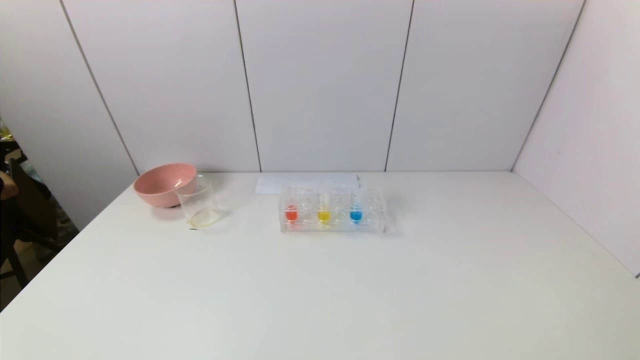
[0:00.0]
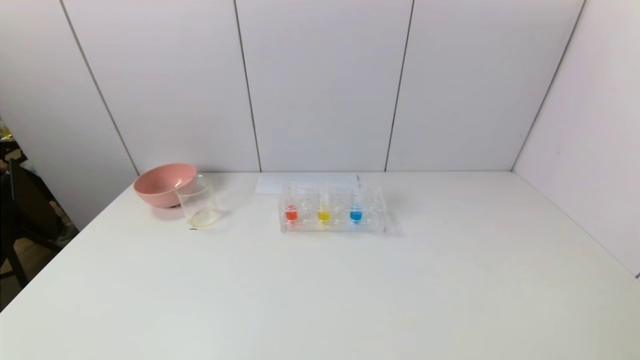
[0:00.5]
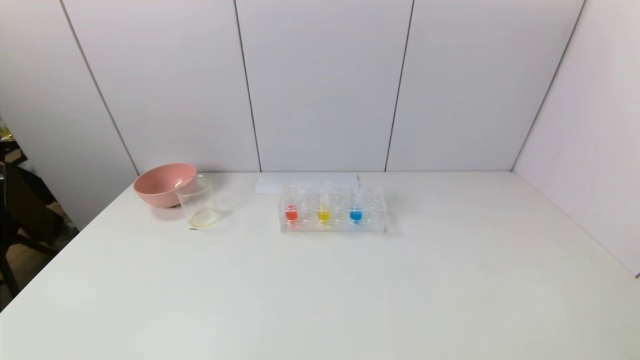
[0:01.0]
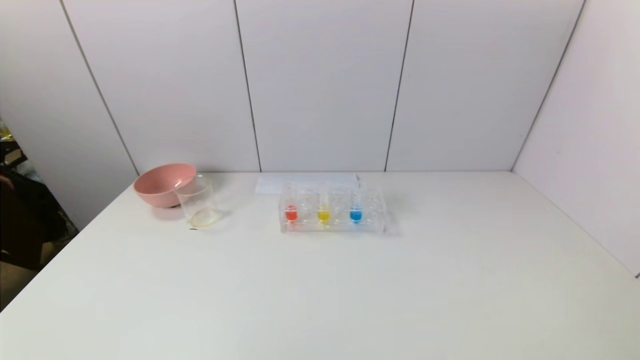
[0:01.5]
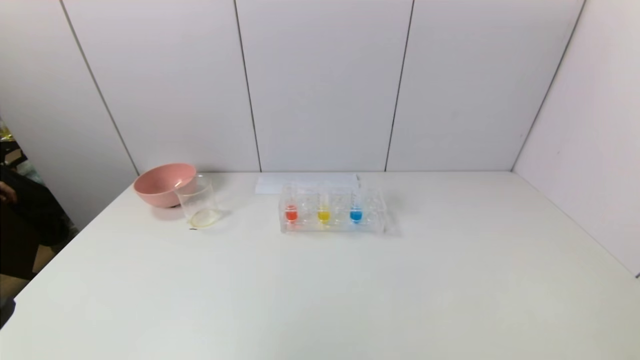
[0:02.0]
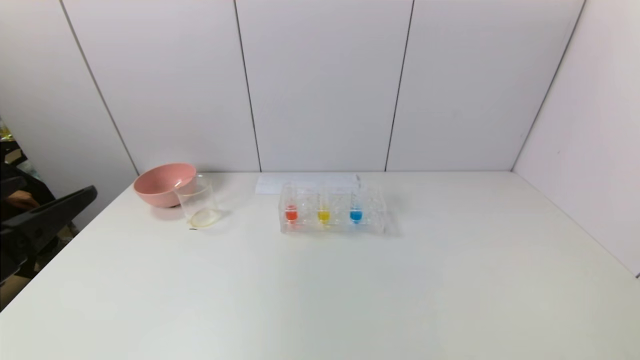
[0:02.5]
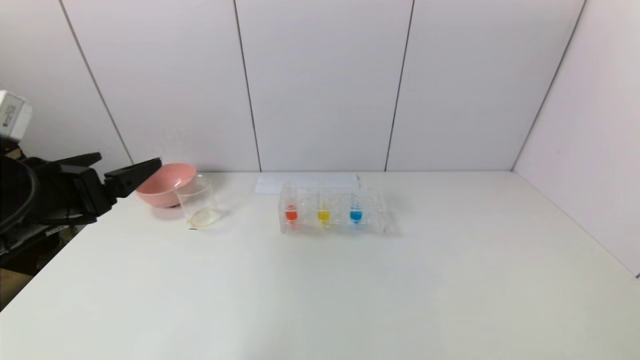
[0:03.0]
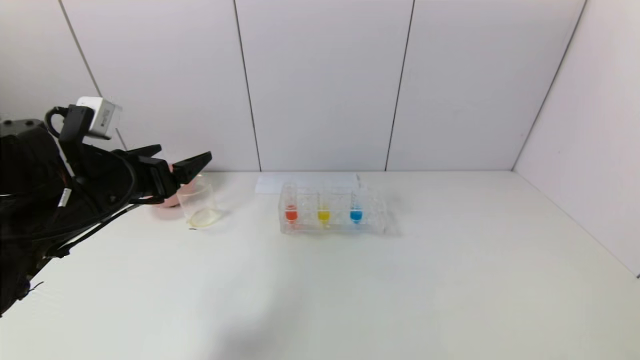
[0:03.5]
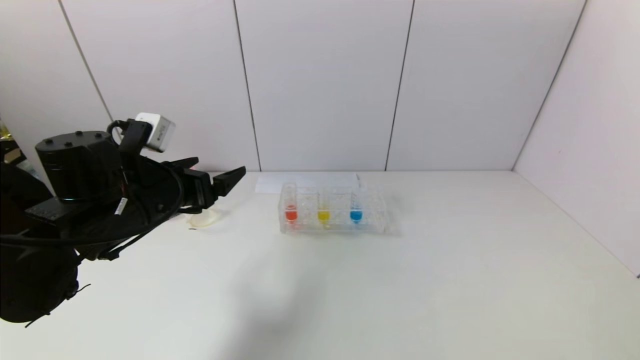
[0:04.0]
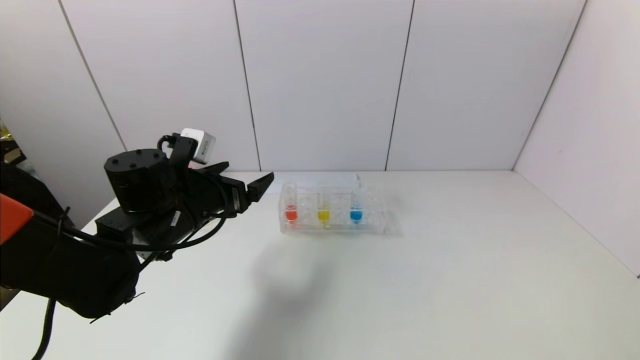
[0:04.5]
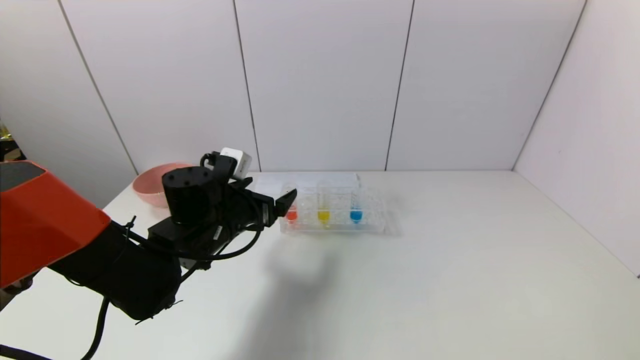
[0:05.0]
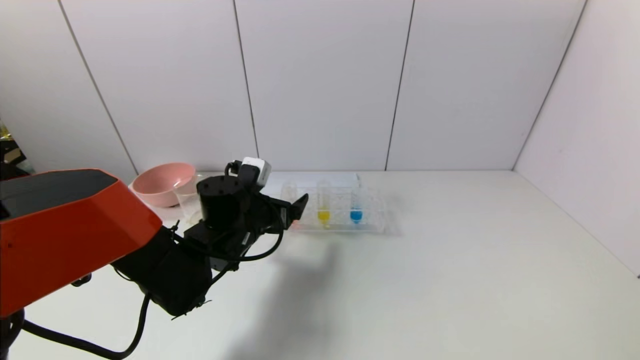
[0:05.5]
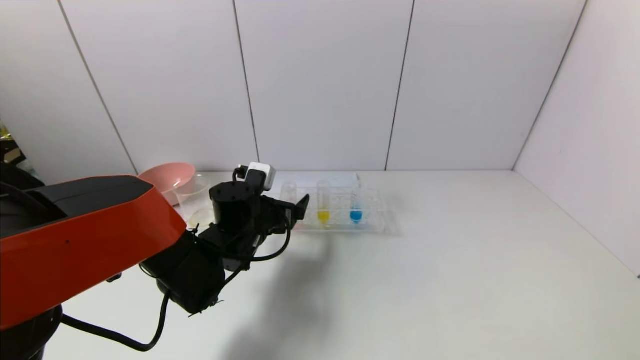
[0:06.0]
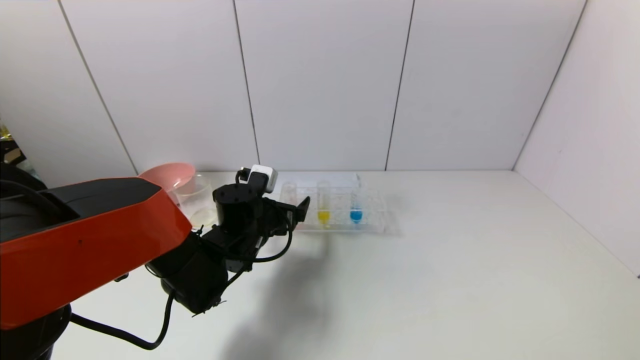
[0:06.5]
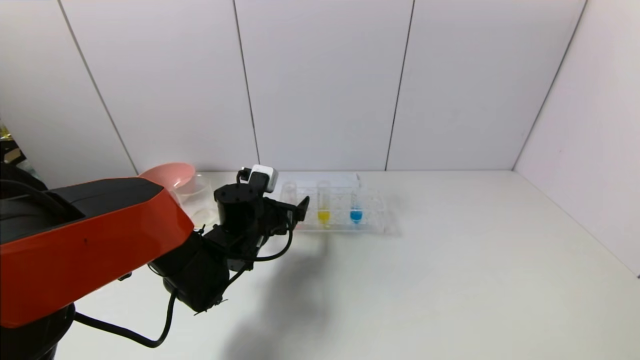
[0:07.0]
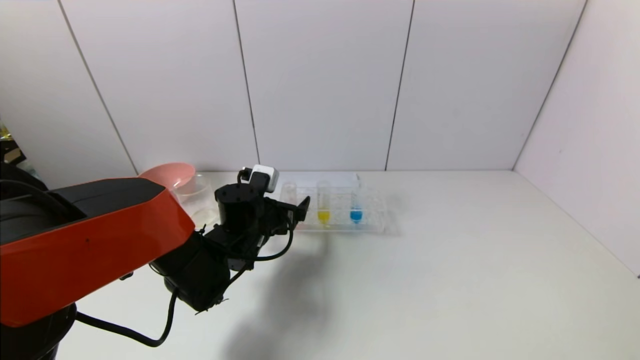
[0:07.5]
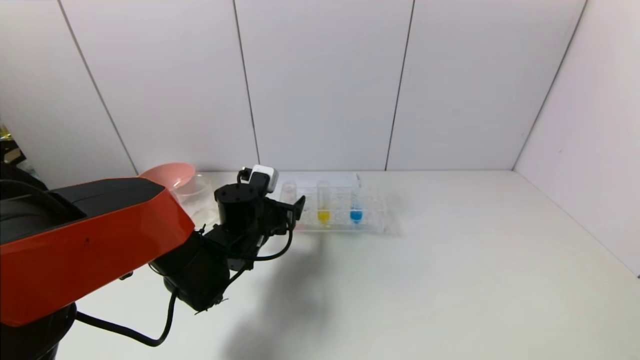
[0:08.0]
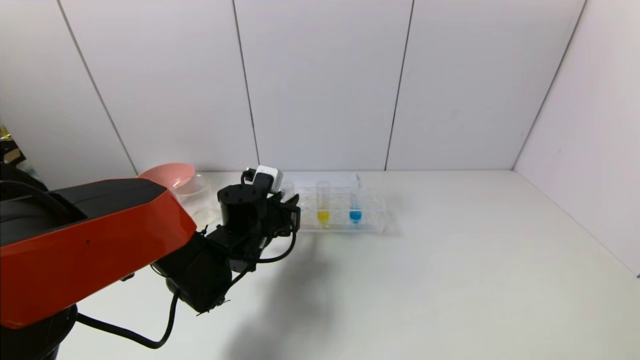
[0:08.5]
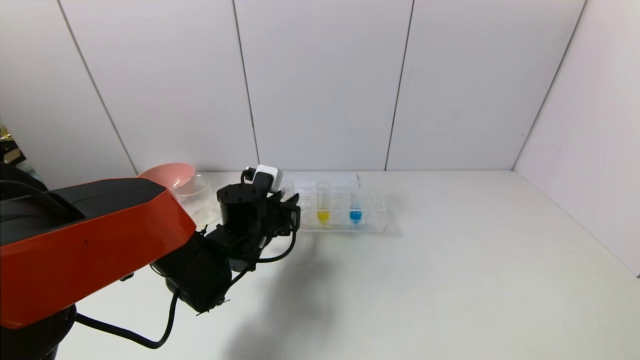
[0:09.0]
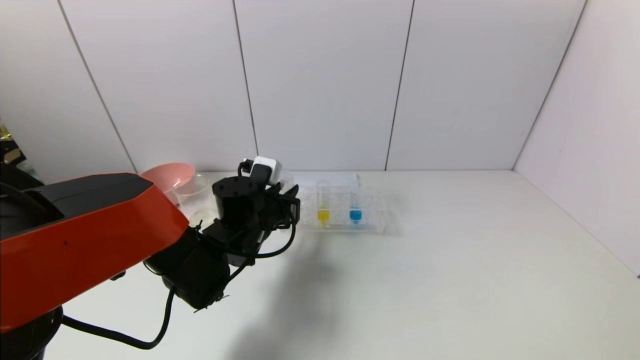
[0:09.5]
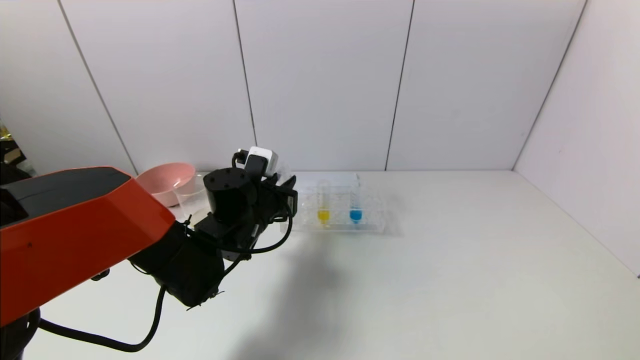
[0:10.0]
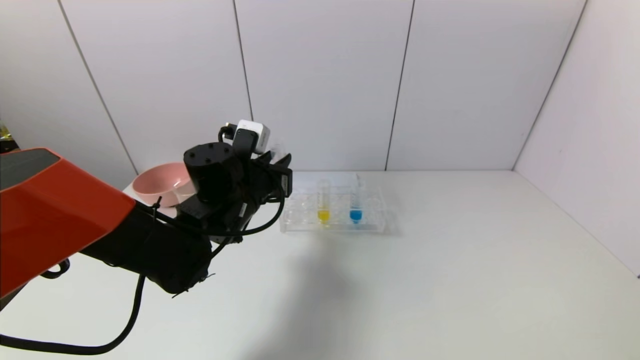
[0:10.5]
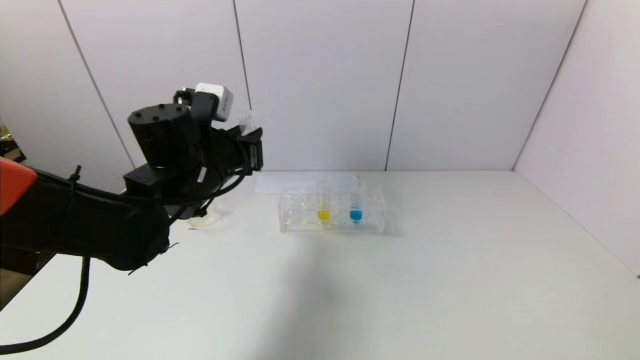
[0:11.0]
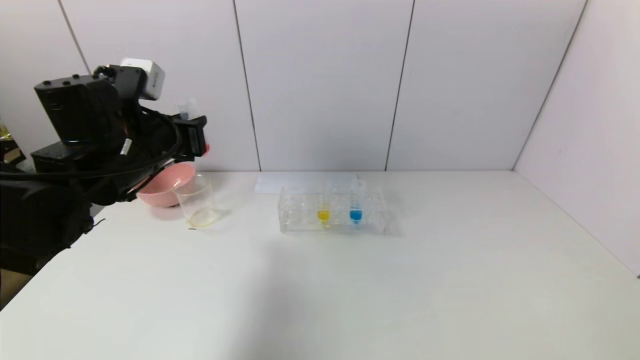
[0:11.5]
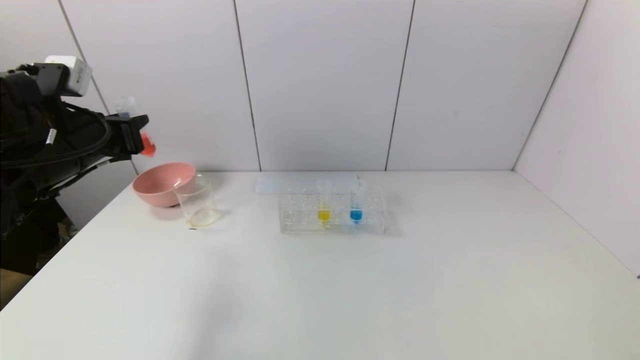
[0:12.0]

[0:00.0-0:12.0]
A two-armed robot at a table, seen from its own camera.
Task of the whole recording: pick up the test tube with yellow pigment and the test tube with red pigment by grippers and pour them into the beaker.
Step, 0:00.0 to 0:08.5: Grasp the red reagent with the left gripper.
0:00.0 to 0:02.0: The left gripper goes about 15 cm upward.
0:02.0 to 0:04.0: The left gripper heads forward, covering approximately 25 cm.
0:04.0 to 0:06.0: The left gripper moves to the right, downward and forward, approximately 15 cm.
0:06.0 to 0:08.0: Neither gripper changes place.
0:08.0 to 0:10.0: The left gripper closes its fingers.
0:10.0 to 0:12.0: The left gripper is displaced to the left and upward by about 25 cm.

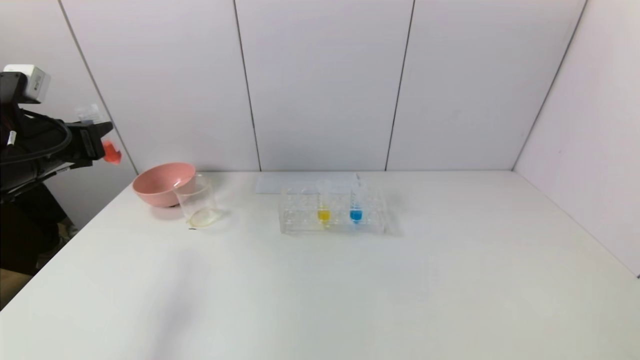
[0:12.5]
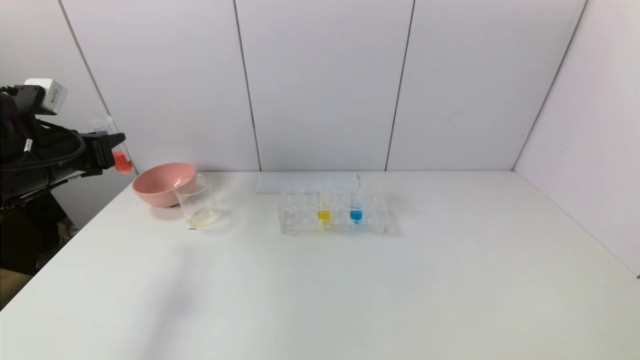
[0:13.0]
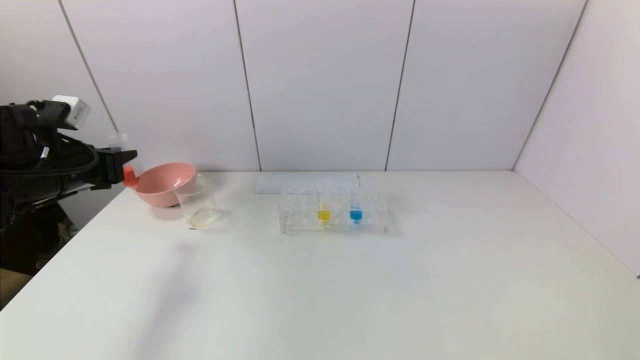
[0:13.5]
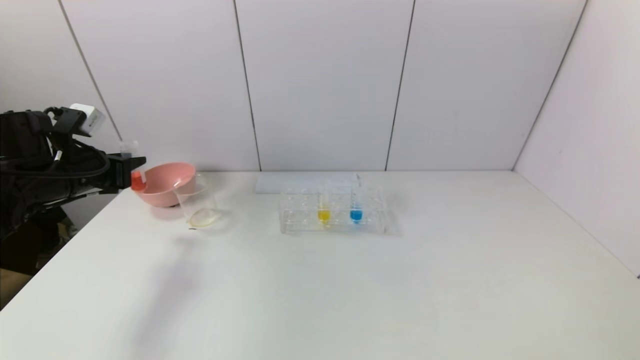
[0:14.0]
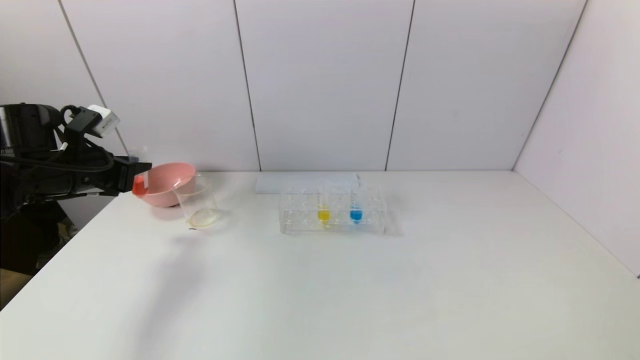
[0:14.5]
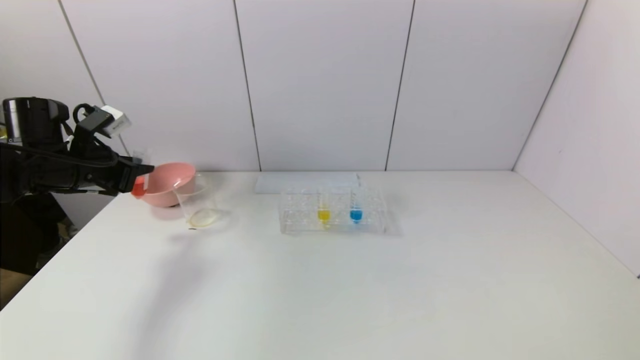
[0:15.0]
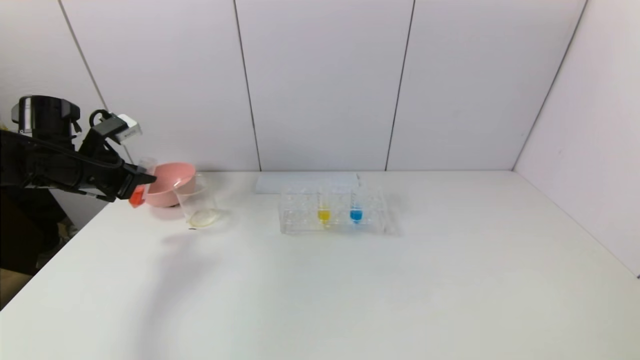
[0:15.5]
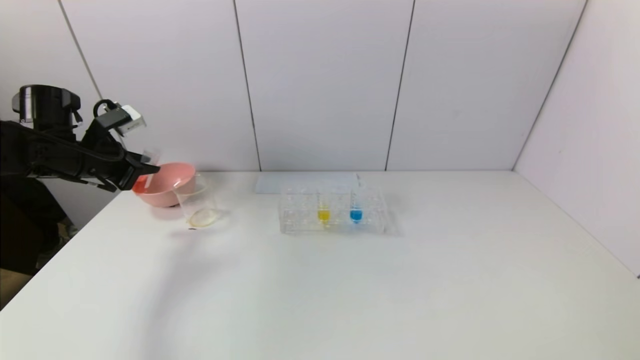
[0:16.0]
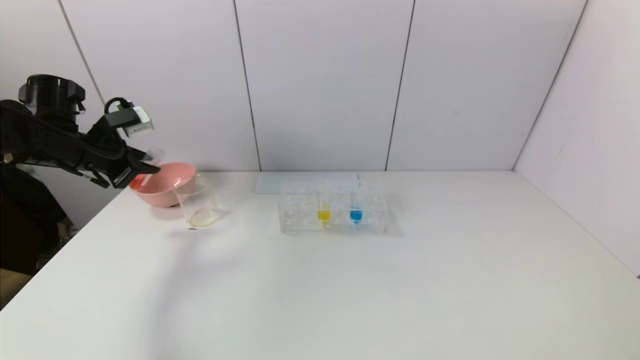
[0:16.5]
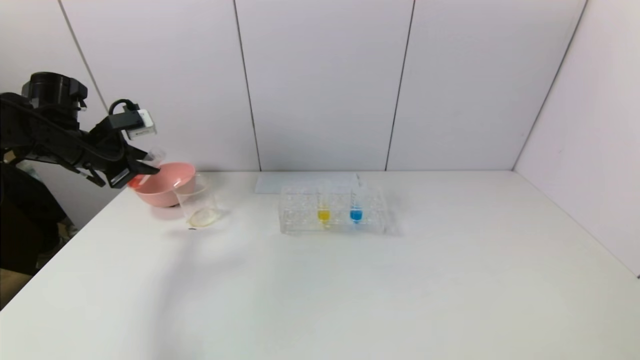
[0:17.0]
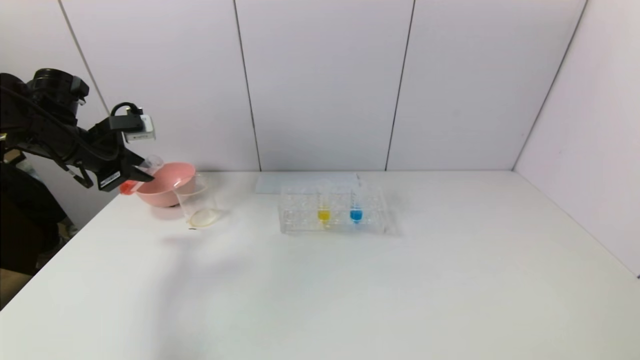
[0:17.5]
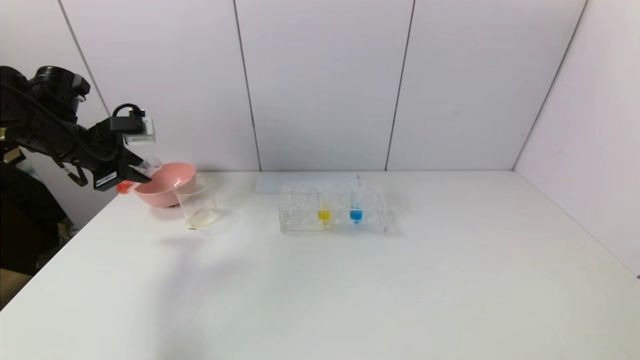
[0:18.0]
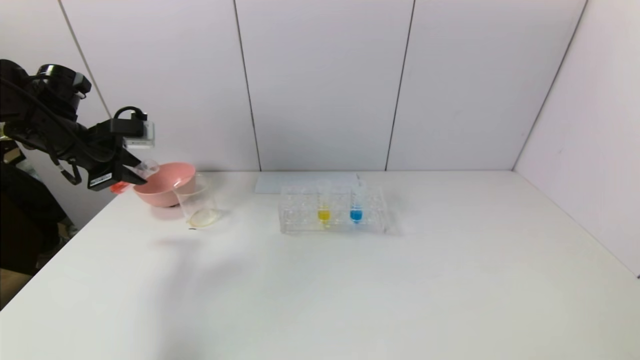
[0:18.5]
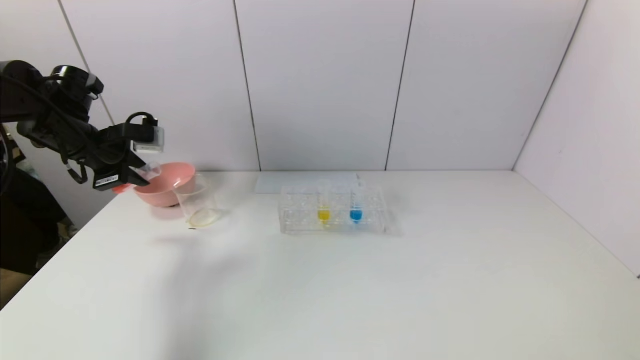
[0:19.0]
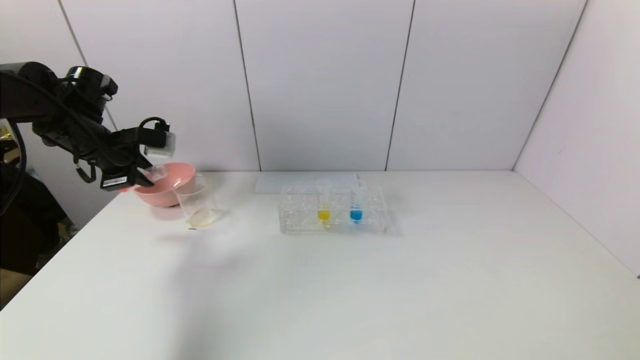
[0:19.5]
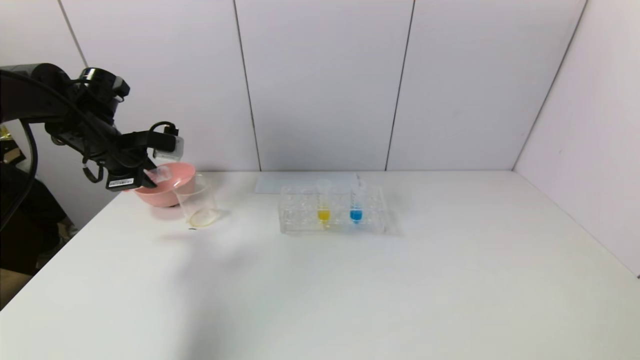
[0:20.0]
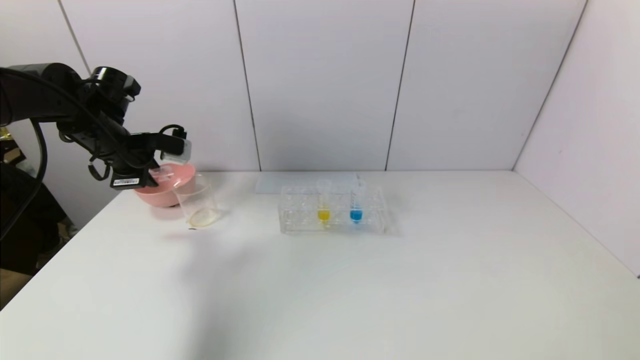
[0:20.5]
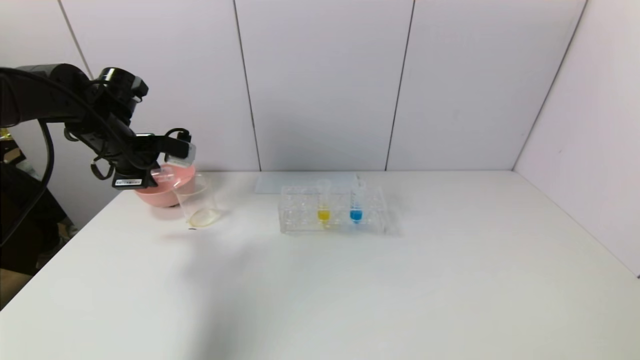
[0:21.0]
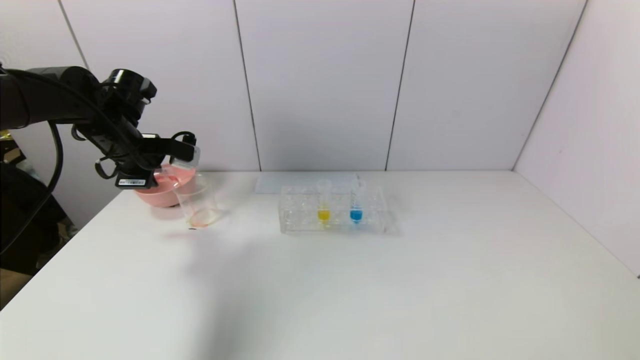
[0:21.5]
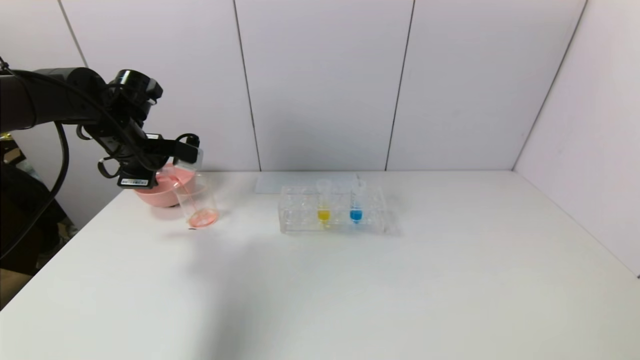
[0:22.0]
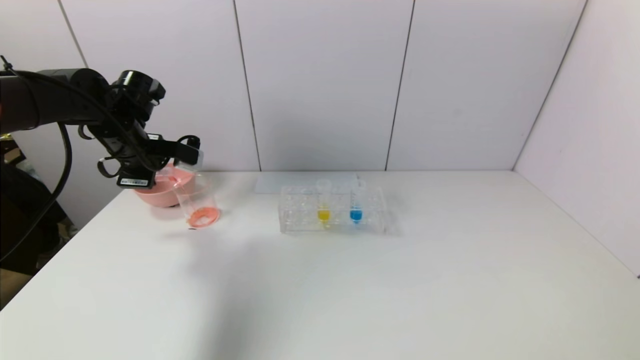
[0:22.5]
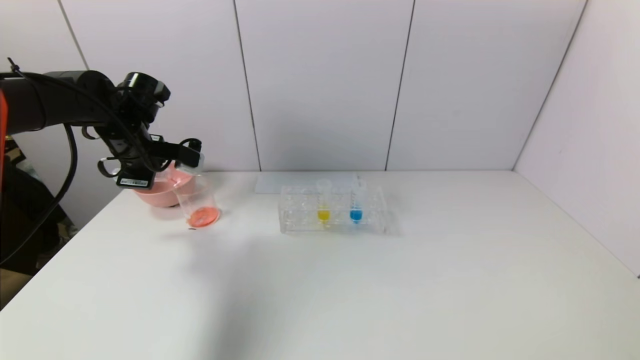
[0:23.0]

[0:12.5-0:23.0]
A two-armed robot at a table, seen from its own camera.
Task of the whole recording: pick up the test tube with yellow pigment and the test tube with red pigment by grippers and pour them into the beaker.
0:12.5 to 0:14.5: The left gripper ends up about 5 cm from where it was.
0:19.0 to 0:21.0: The left gripper moves about 5 cm.
0:21.0 to 0:23.0: There are only small adjustments of the grippers.
